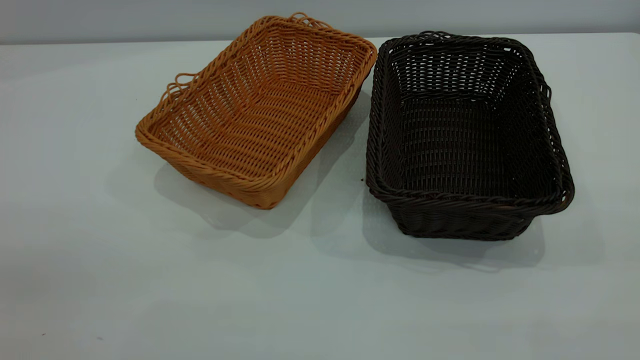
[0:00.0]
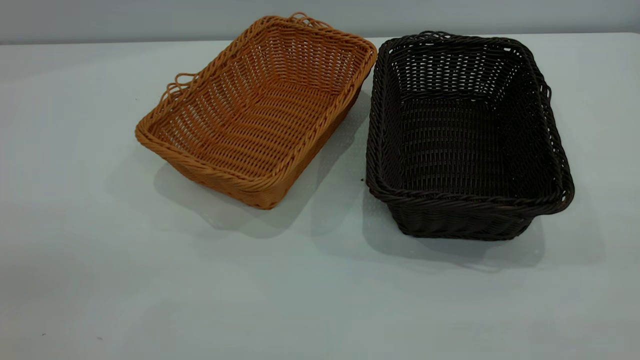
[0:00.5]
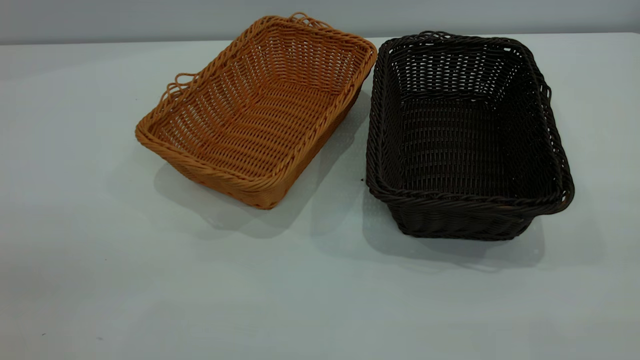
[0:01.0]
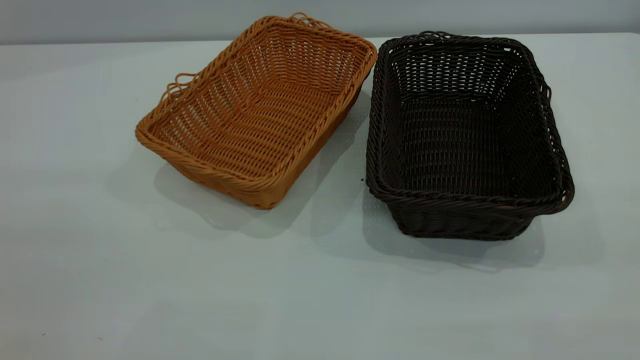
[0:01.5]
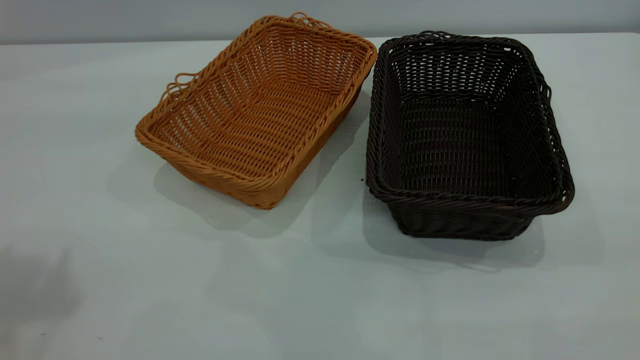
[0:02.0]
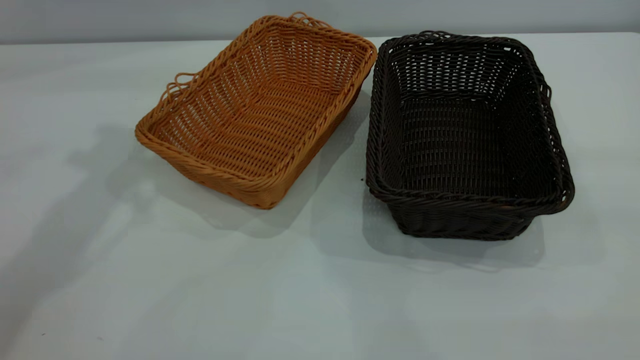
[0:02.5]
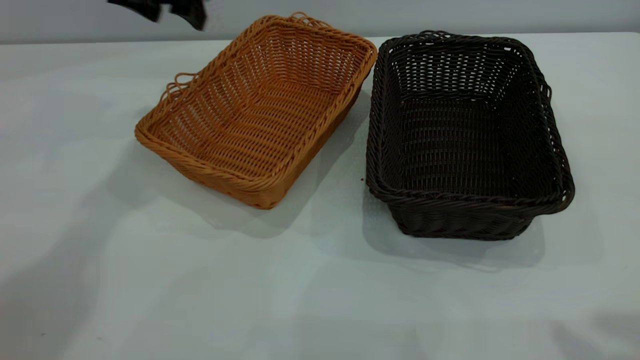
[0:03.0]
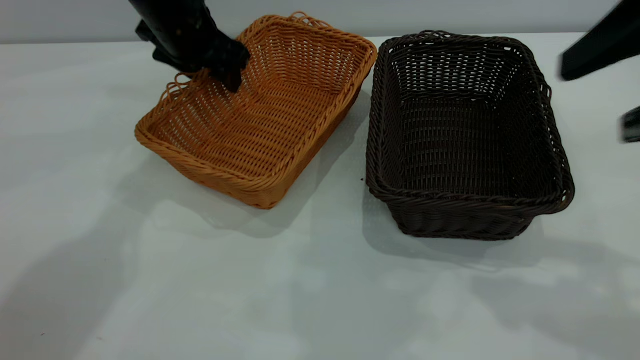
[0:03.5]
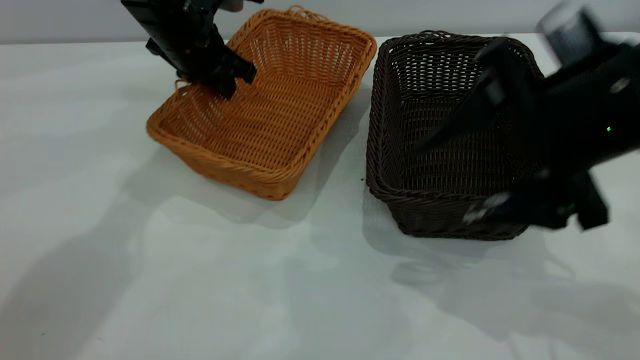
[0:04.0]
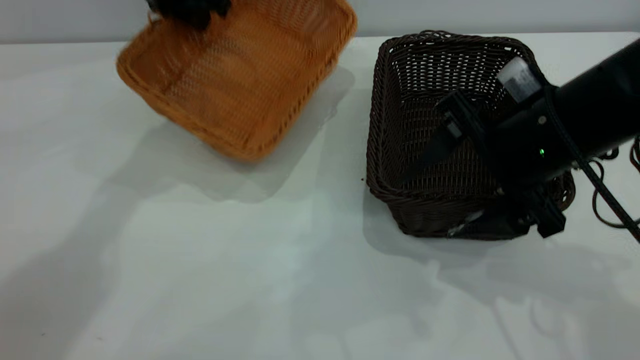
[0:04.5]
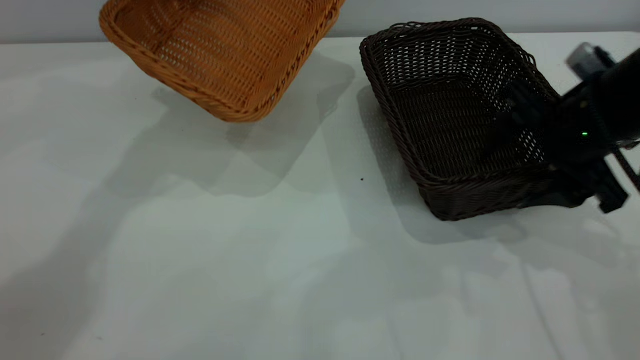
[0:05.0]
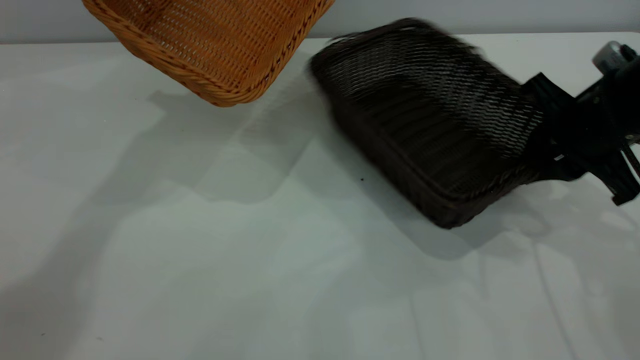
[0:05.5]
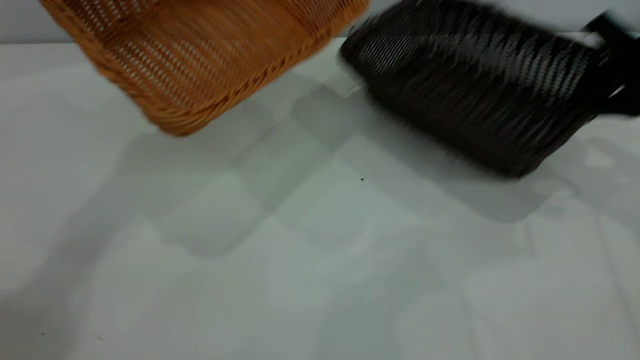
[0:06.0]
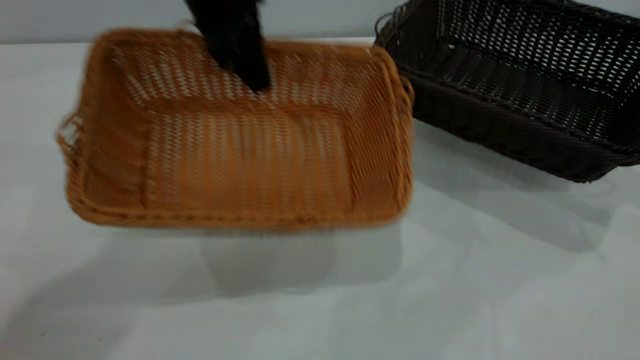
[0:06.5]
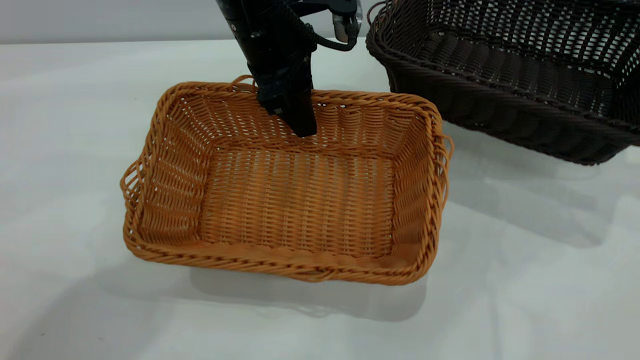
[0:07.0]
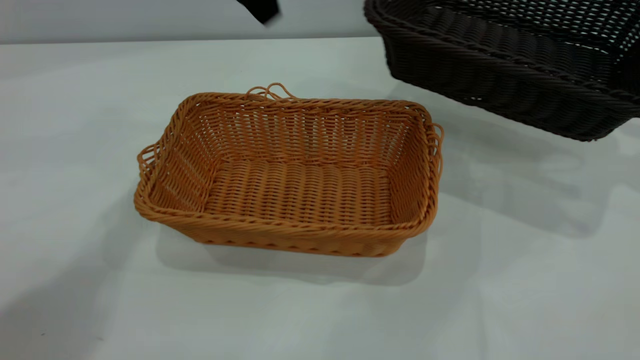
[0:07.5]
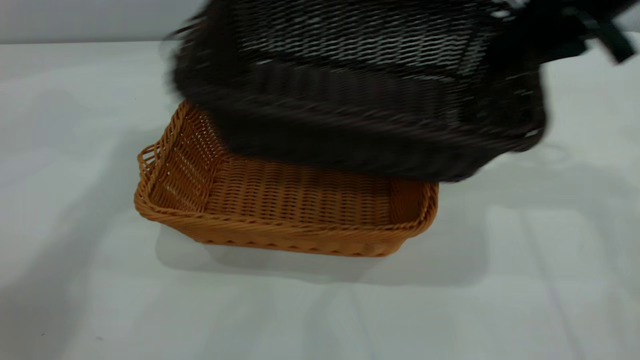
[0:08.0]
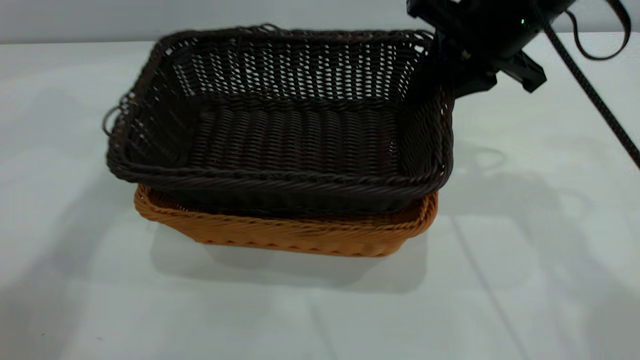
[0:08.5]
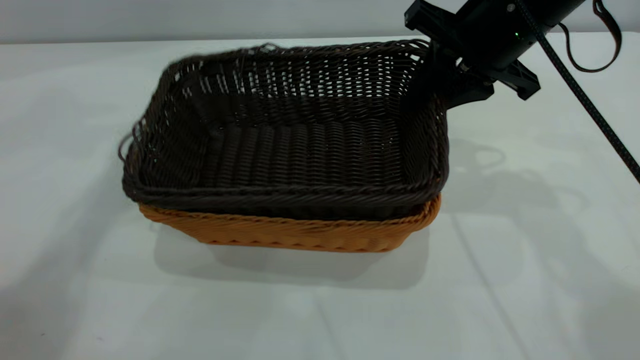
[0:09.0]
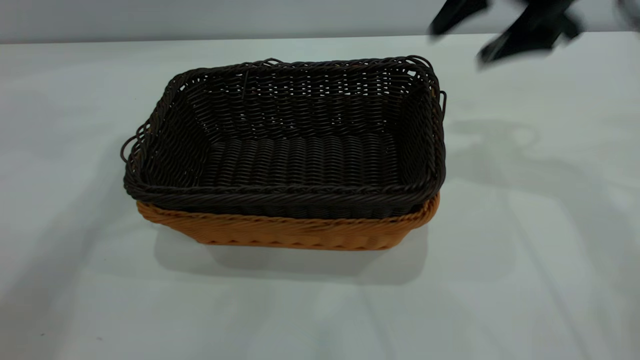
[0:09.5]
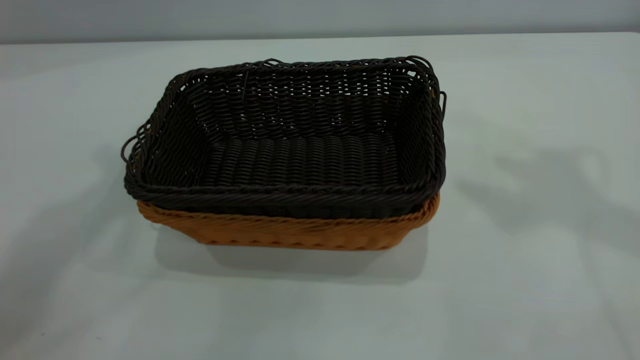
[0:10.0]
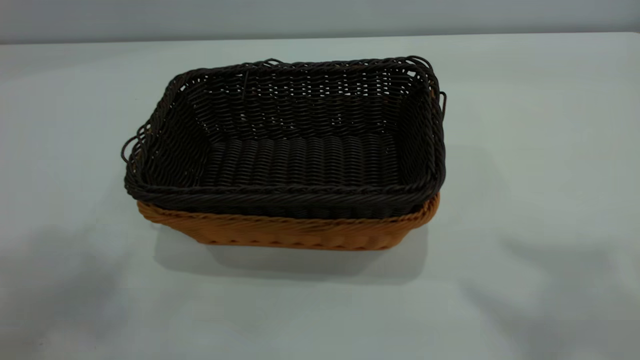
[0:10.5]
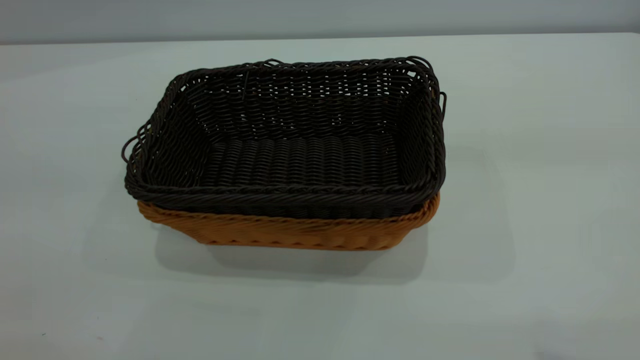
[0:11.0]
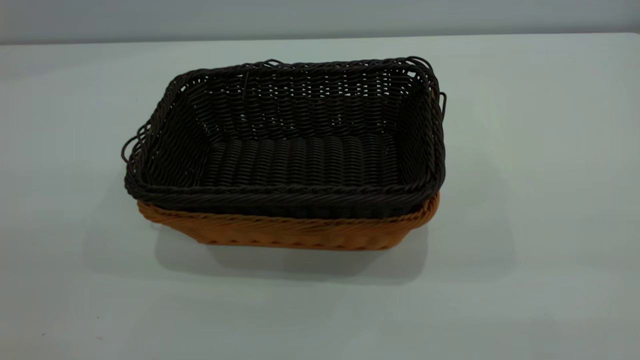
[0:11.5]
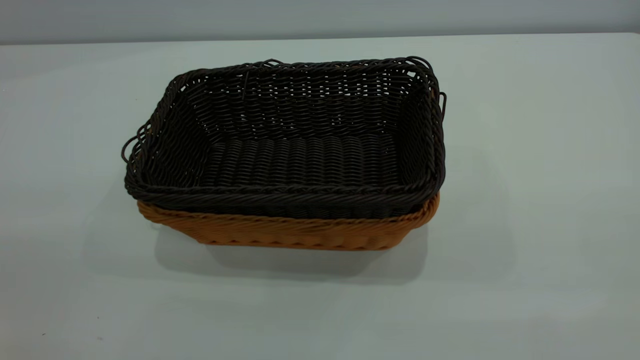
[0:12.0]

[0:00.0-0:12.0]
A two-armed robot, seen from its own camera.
Task of the whole recording: the left gripper grasp the brown basket and place it in the center of the table, the right gripper grasp the black basket and place it inside the brown one.
Step, 0:00.0 to 0:06.0: Pick up the light basket with the right gripper.
Step, 0:06.5 to 0:07.0: Place the light-colored basket in the center.
Step, 0:07.5 to 0:09.0: Place the dark basket on top of the light basket.
0:02.0 to 0:04.0: The left gripper heads forward, downward and to the right, covering approximately 40 cm, and closes up. Meanwhile the right gripper travels forward, downward and to the left by approximately 30 cm.
0:04.0 to 0:06.0: The left gripper shifts approximately 15 cm upward. Meanwhile the right gripper heads to the right and forward, covering some 20 cm, and closes its fingers.
0:06.0 to 0:08.0: The right gripper shifts about 15 cm to the left and upward, while the left gripper moves roughly 10 cm to the right and comes back, and opens up.
0:08.0 to 0:10.0: The left gripper goes about 25 cm upward and backward. Meanwhile the right gripper is displaced upward by some 25 cm, and opens its fingers.
